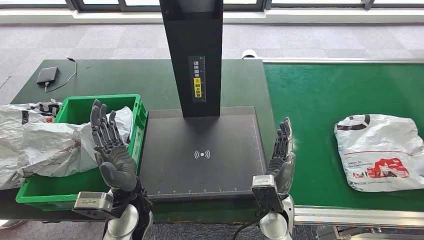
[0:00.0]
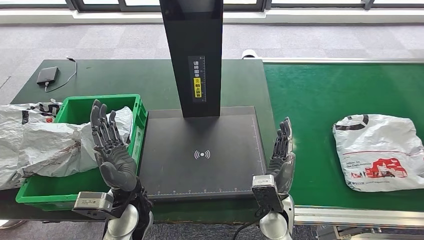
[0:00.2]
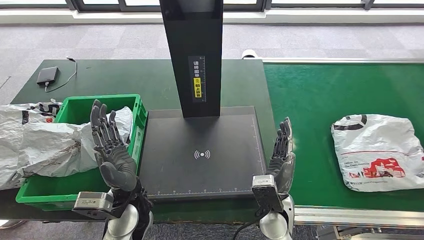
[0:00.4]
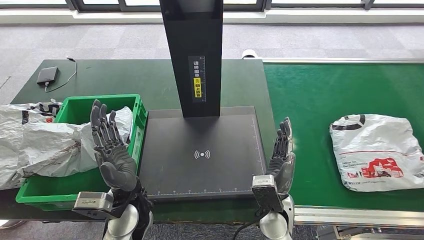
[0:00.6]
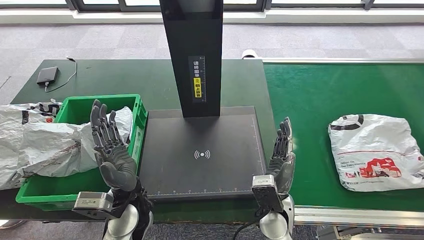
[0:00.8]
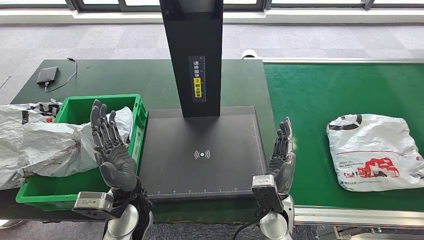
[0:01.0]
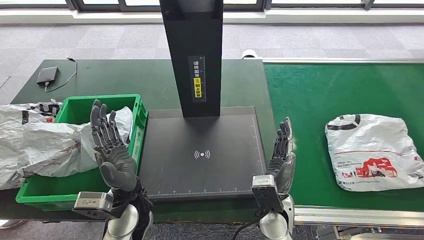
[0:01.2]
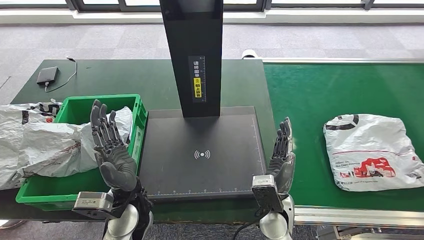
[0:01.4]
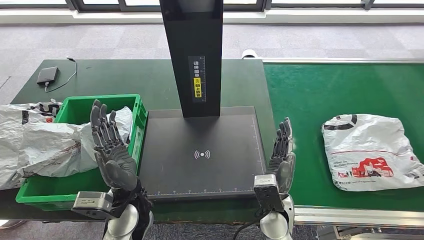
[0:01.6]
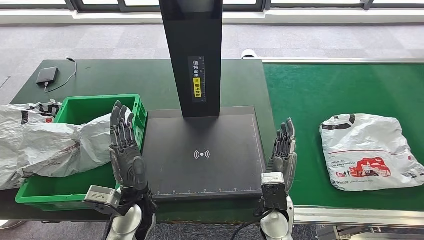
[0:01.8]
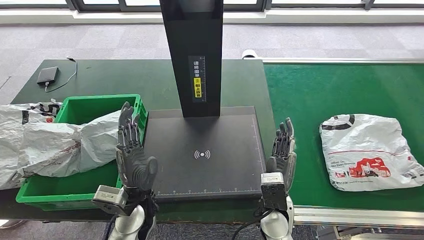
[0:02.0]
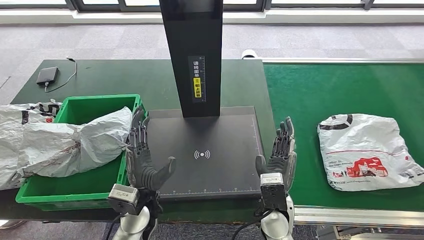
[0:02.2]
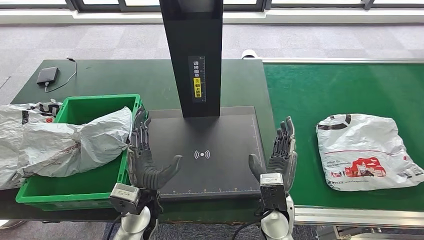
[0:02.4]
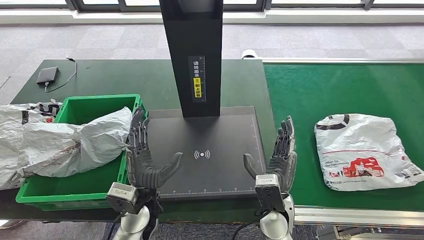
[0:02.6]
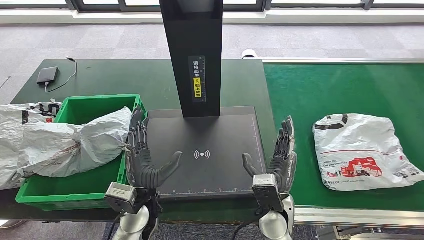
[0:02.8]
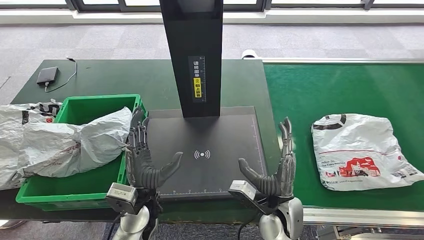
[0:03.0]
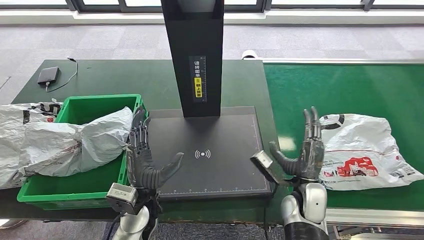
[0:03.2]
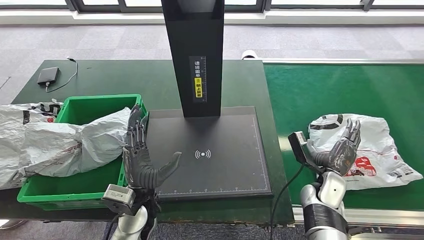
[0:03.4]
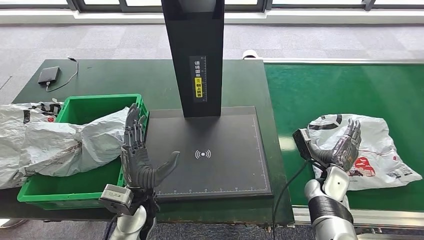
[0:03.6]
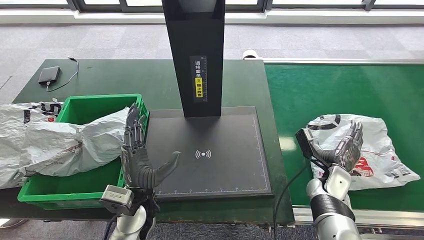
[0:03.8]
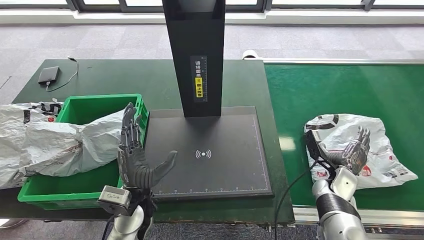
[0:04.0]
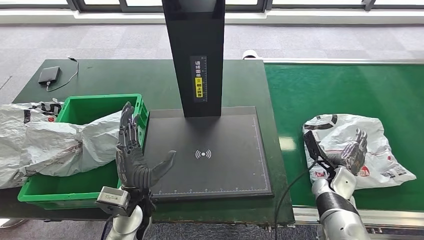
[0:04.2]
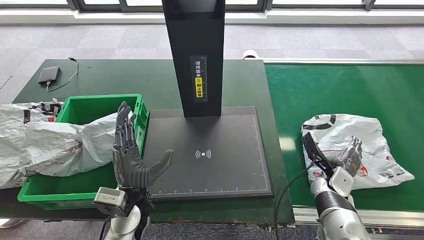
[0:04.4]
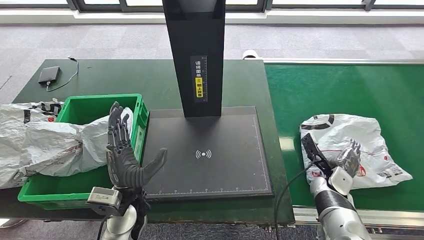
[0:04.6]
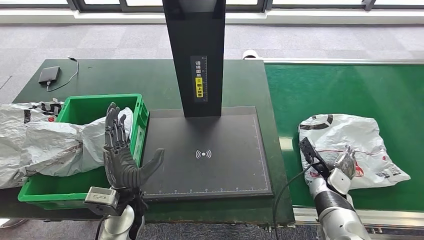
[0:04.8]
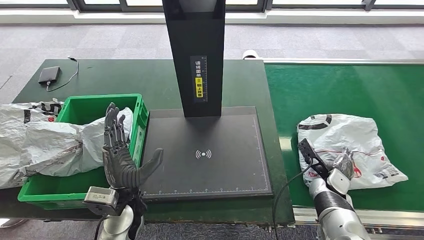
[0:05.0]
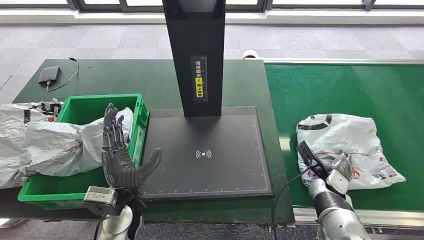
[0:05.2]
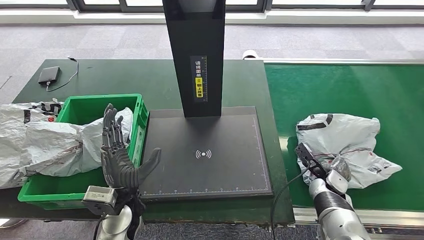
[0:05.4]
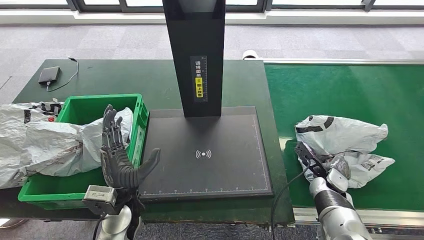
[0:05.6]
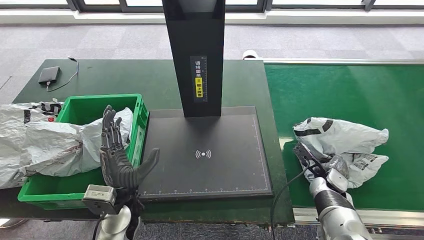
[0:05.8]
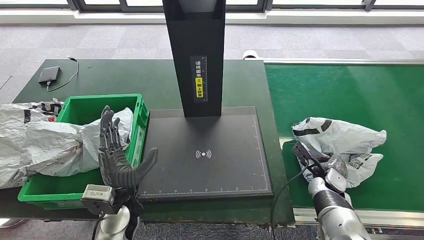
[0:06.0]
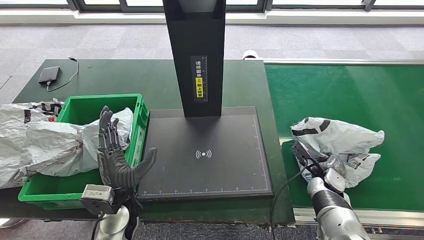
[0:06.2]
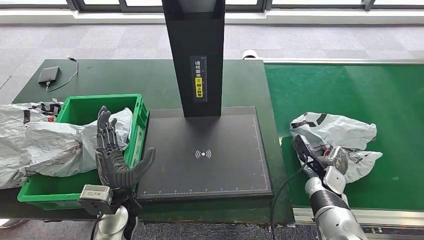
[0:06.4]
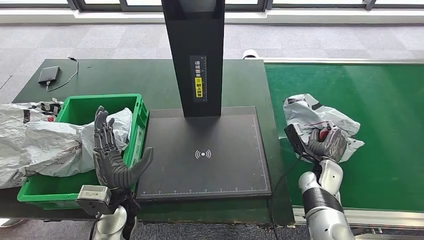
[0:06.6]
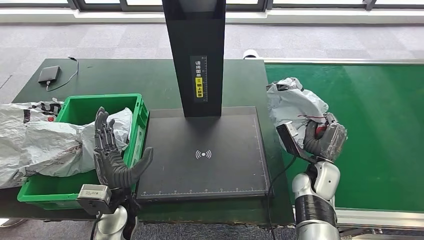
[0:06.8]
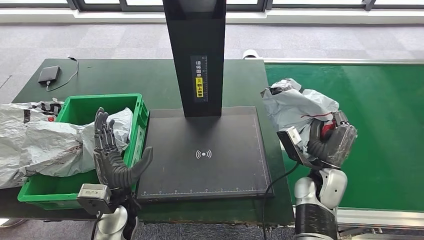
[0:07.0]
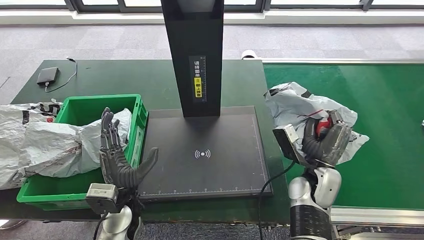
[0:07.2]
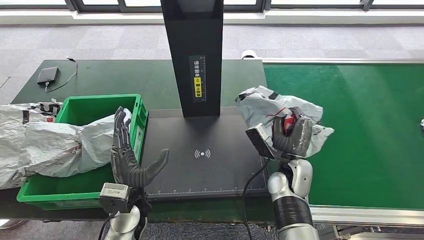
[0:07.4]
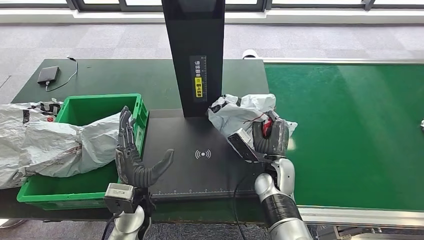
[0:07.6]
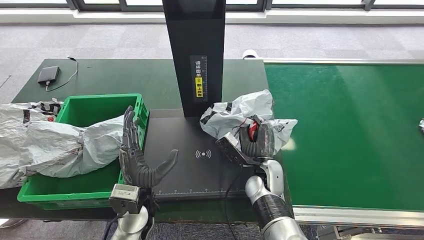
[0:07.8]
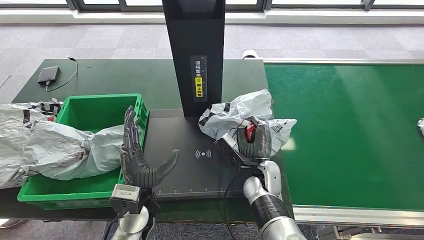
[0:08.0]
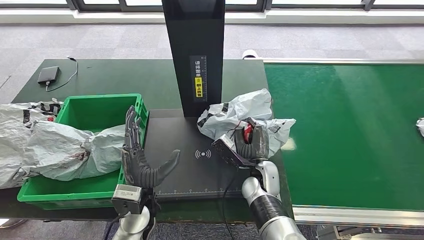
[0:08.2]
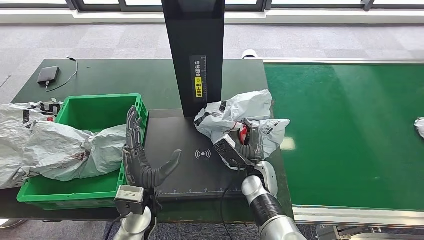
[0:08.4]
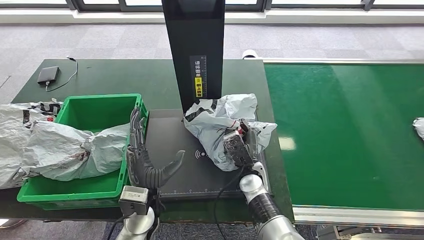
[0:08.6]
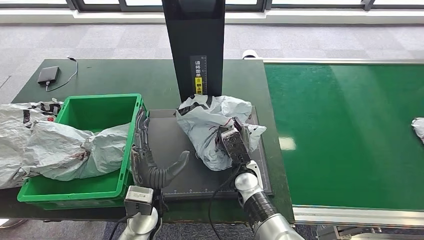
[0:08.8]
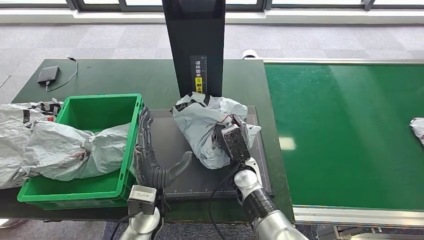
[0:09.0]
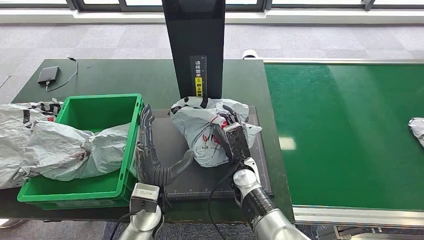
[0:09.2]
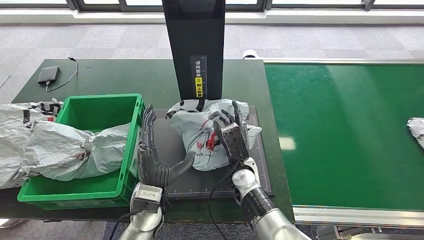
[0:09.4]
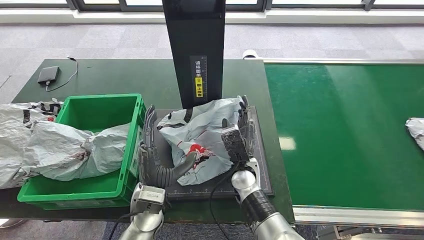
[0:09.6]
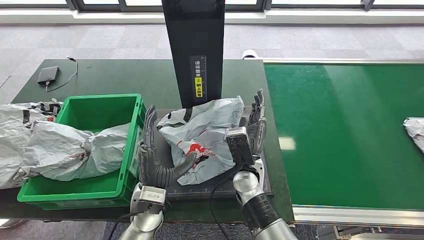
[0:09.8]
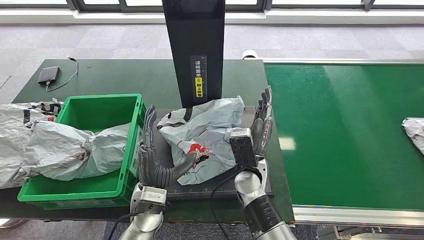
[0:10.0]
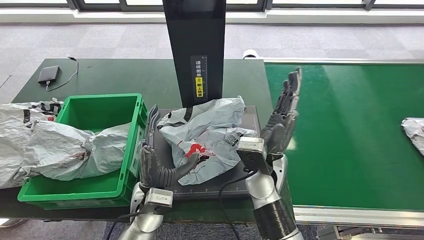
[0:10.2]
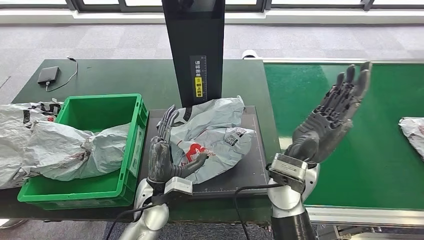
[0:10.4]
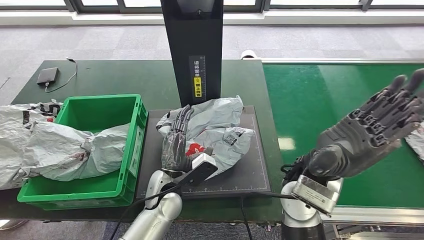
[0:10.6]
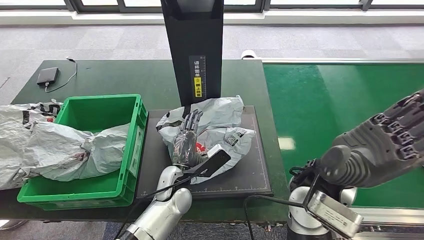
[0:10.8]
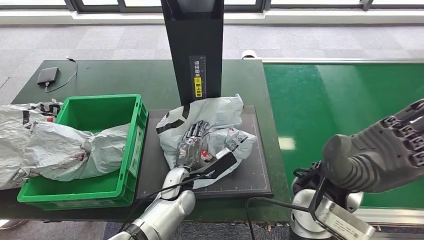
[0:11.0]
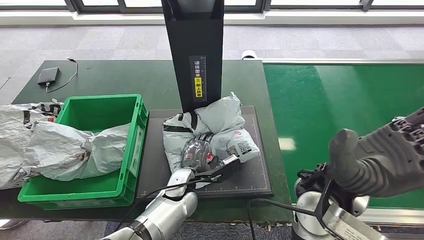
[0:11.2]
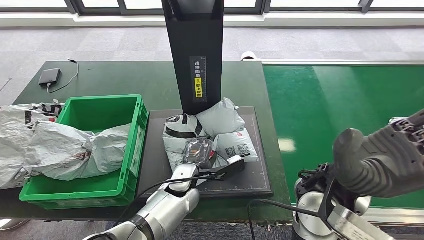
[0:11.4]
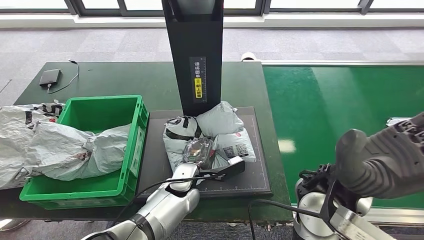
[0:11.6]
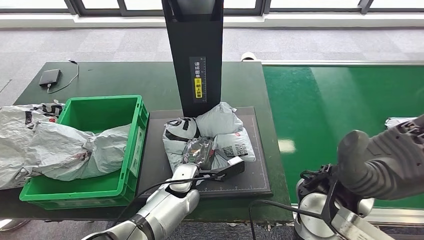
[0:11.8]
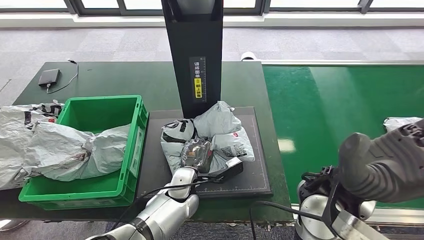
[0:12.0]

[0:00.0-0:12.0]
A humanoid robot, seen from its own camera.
Step, 0:00.0 to 0:07.4: Pick up the parcel from the conveyor belt.
Step, 0:07.6 to 0:10.0: Place the parcel onto the inbound machine.
0:00.0 to 0:01.6: Both hands stay about where they are.
0:03.0 to 0:04.4: The right hand shifts approximately 20 cm to the right and forward.
0:07.6 to 0:09.0: The right hand shifts roughly 5 cm to the left.
0:09.0 to 0:10.4: The right hand moves upward, about 15 cm.

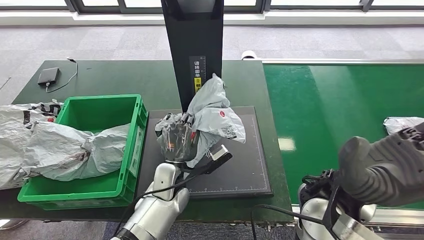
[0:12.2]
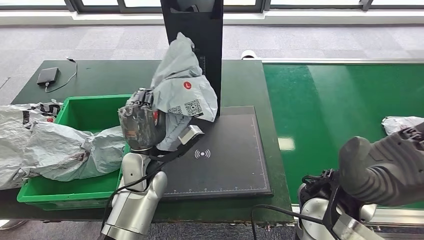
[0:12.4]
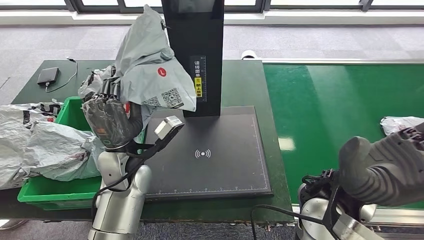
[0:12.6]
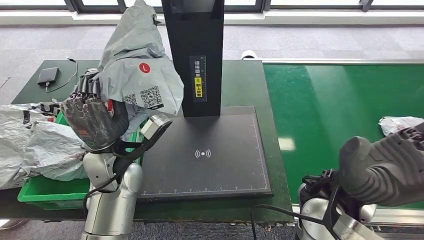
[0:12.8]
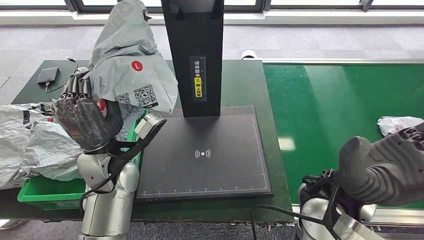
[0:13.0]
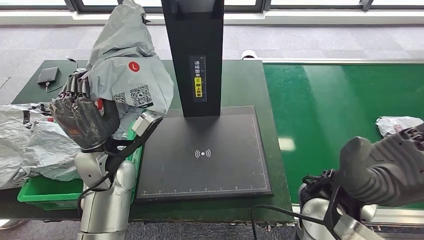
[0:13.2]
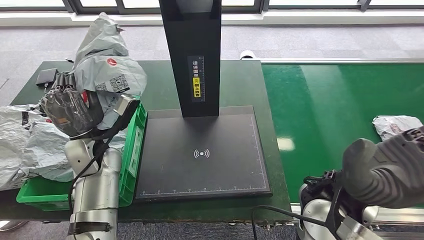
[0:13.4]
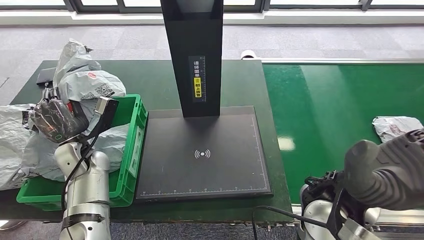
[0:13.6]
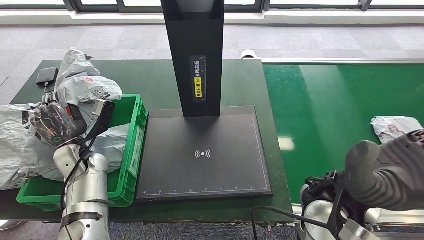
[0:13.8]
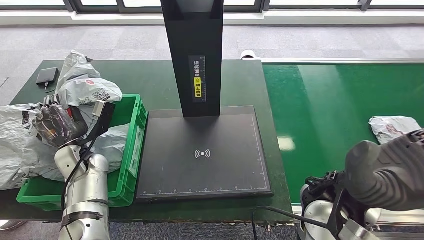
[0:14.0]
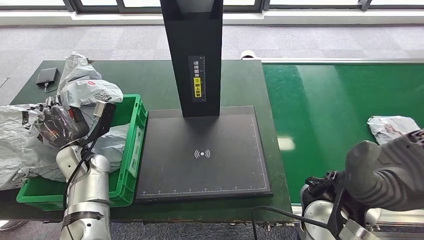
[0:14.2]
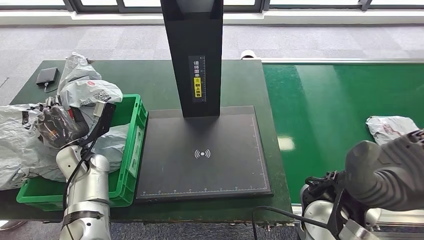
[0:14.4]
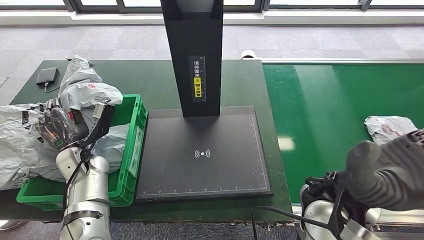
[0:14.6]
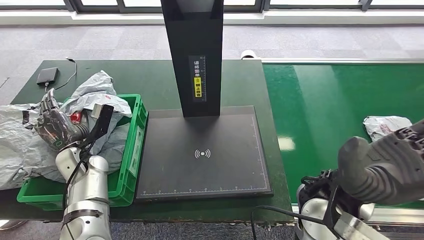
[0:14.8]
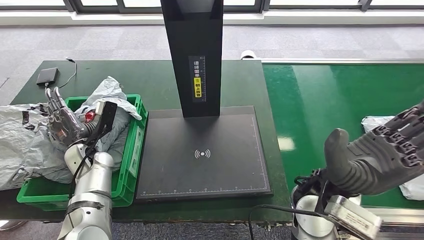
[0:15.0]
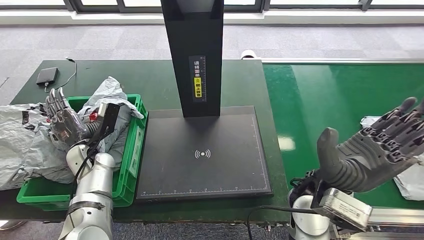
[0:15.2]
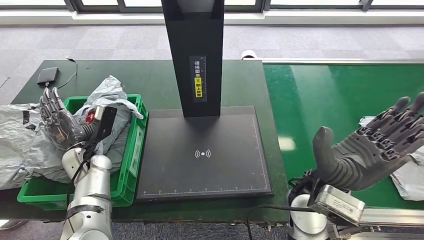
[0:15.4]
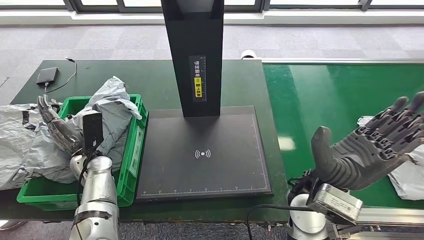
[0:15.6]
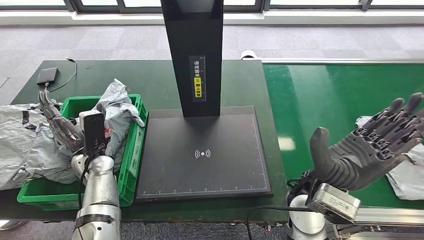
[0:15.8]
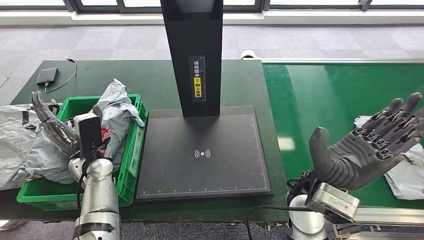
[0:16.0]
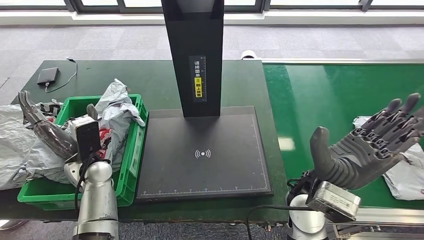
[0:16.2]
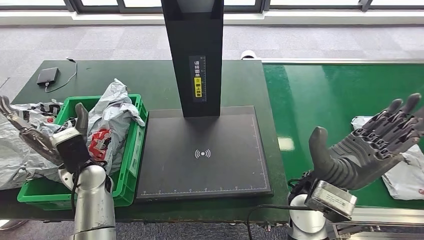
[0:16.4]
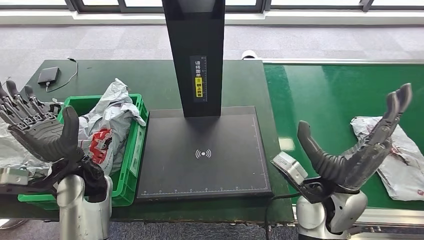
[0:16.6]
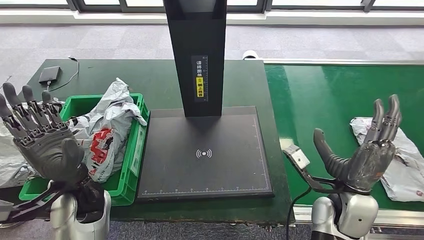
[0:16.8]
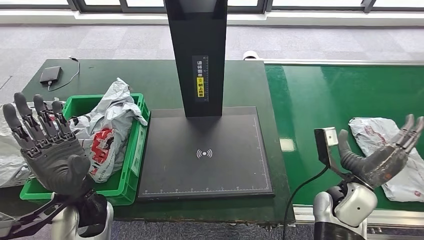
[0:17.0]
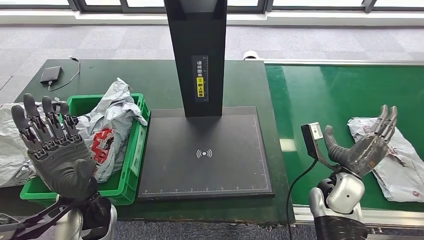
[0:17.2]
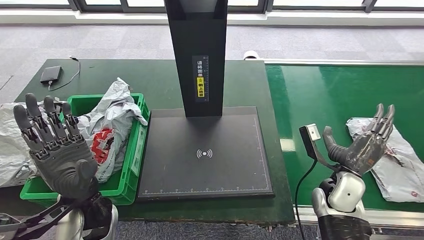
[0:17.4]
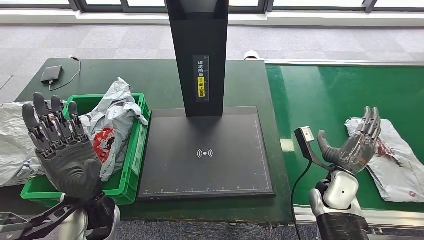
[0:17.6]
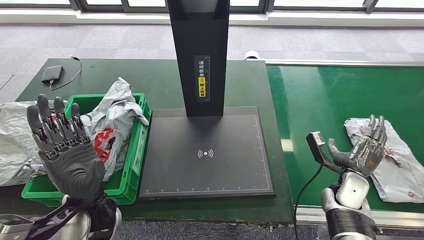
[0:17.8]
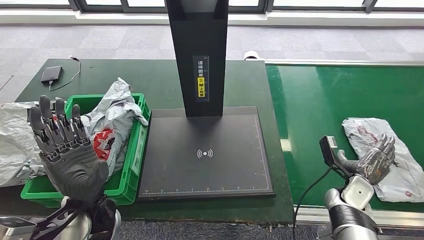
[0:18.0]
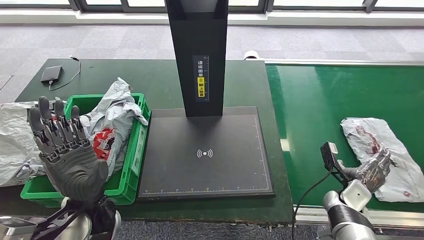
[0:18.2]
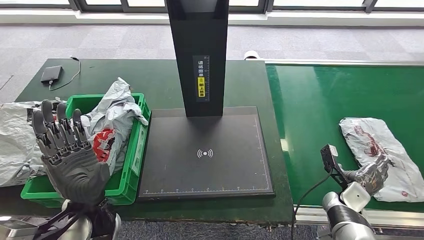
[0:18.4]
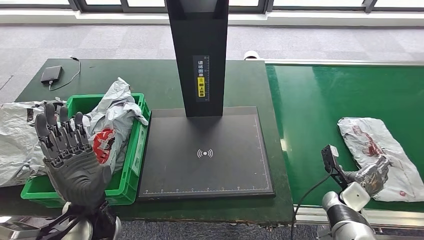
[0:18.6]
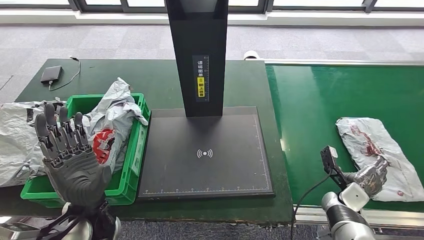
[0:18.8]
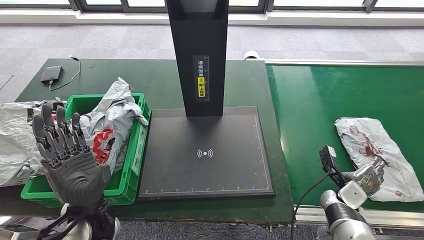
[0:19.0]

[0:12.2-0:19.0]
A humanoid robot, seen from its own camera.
Step, 0:13.4 to 0:16.6: Place the parcel into the delivery box.
0:13.6 to 0:15.0: The hands make only small movements.
0:15.0 to 0:16.2: The left hand changes place by some 5 cm.
0:17.6 to 0:19.0: The right hand heads downward and to the right, covering some 10 cm.
